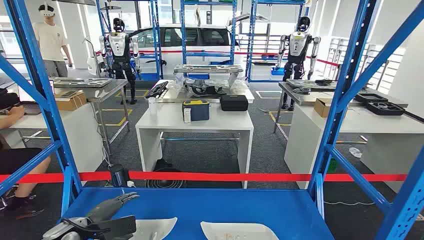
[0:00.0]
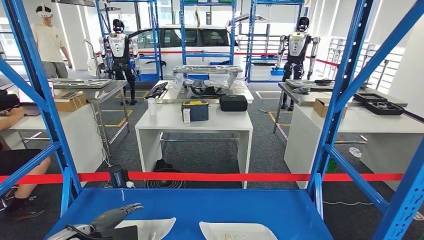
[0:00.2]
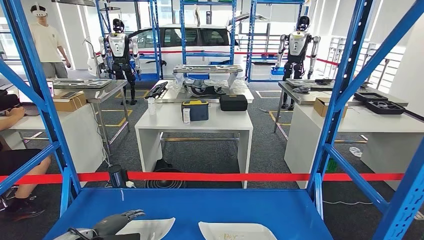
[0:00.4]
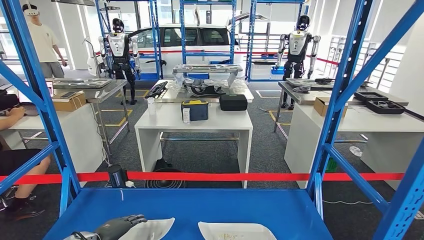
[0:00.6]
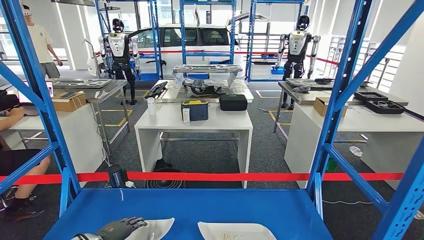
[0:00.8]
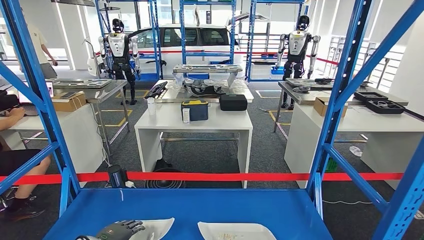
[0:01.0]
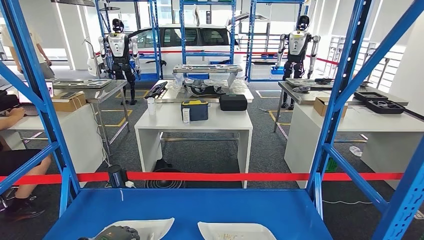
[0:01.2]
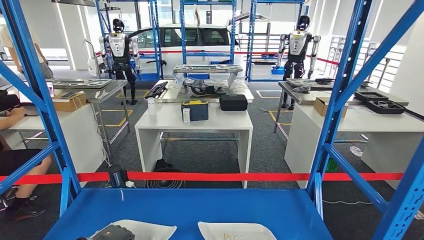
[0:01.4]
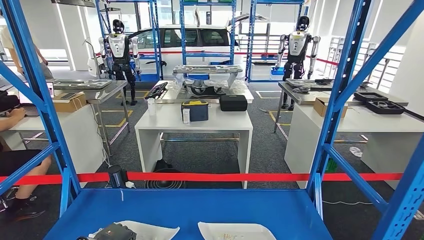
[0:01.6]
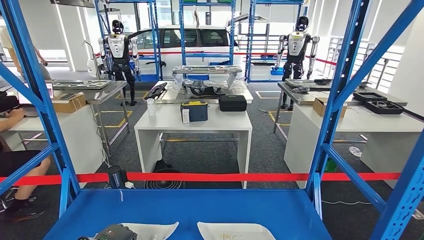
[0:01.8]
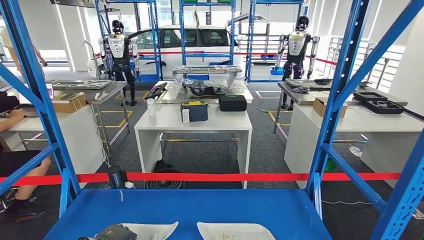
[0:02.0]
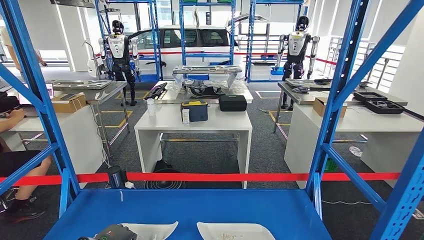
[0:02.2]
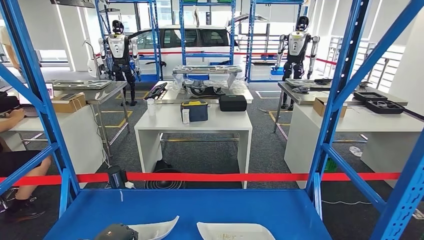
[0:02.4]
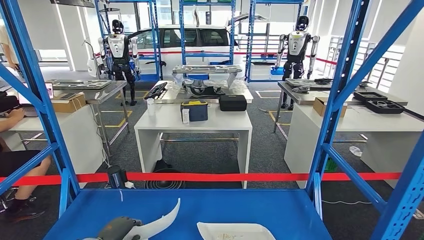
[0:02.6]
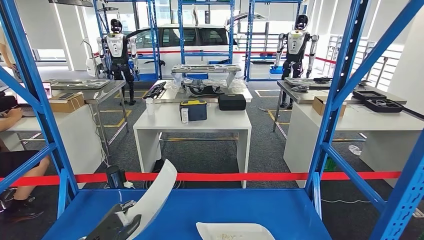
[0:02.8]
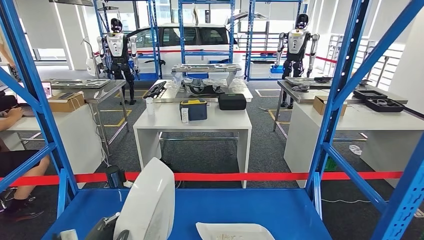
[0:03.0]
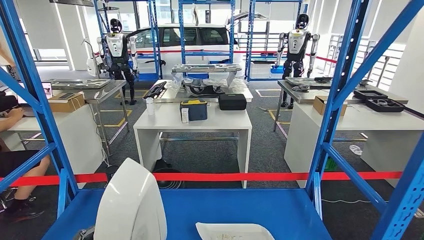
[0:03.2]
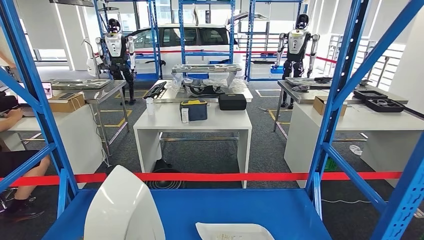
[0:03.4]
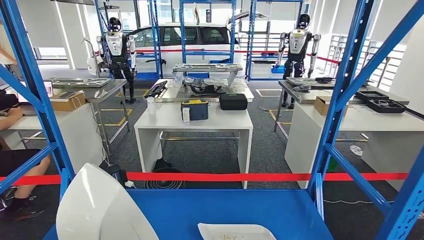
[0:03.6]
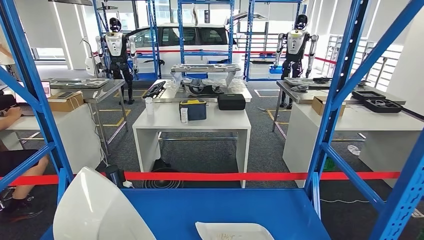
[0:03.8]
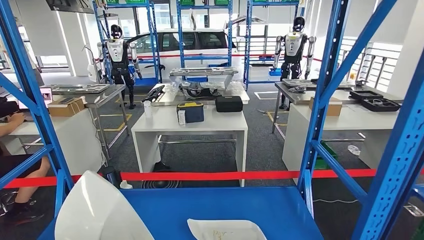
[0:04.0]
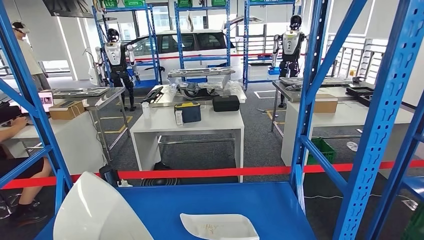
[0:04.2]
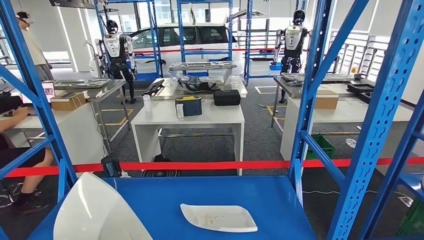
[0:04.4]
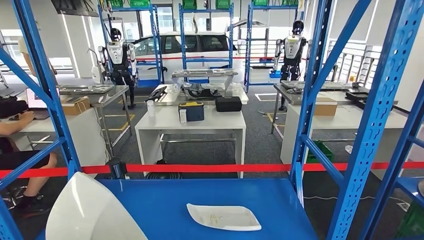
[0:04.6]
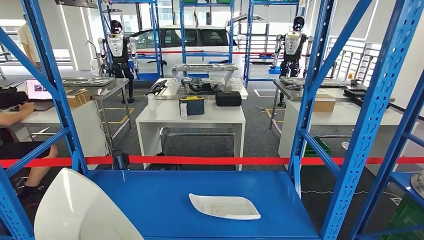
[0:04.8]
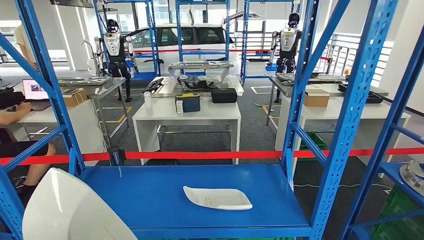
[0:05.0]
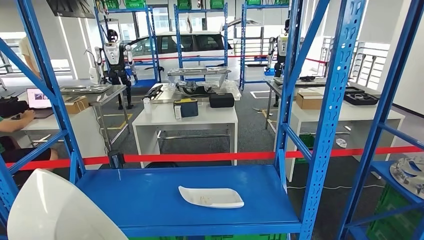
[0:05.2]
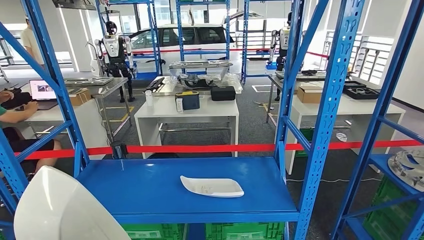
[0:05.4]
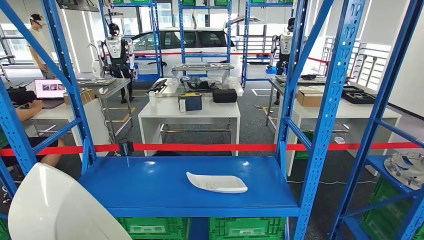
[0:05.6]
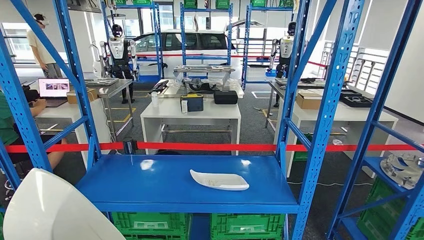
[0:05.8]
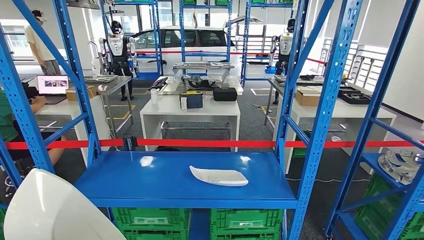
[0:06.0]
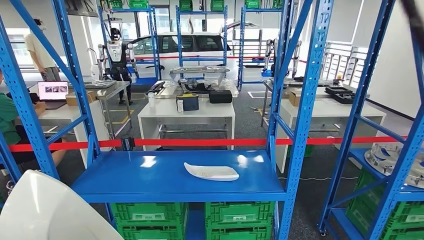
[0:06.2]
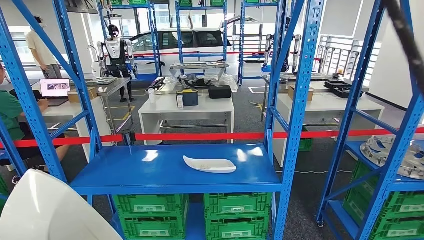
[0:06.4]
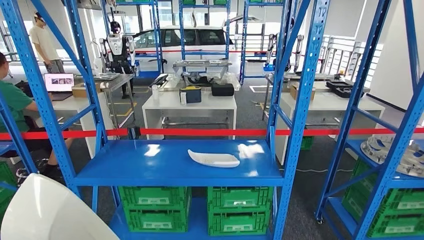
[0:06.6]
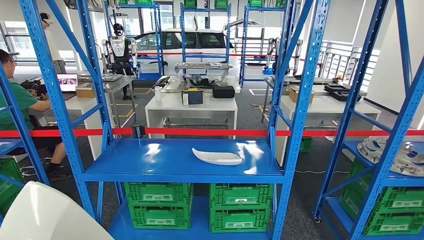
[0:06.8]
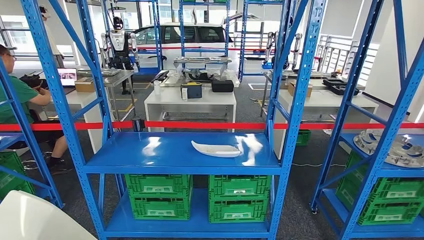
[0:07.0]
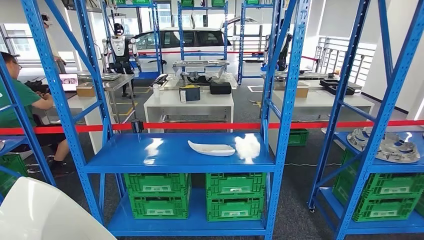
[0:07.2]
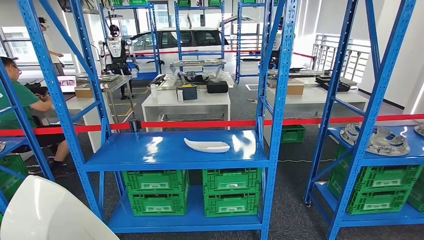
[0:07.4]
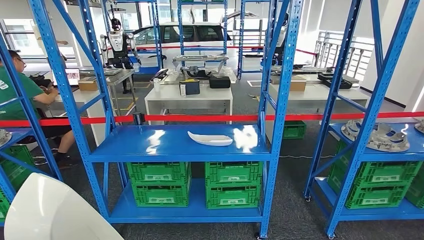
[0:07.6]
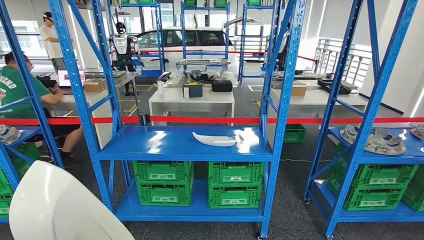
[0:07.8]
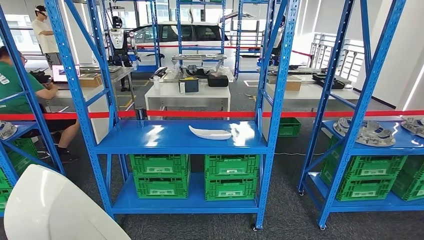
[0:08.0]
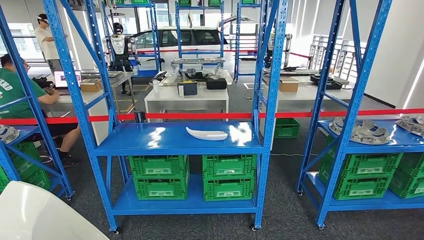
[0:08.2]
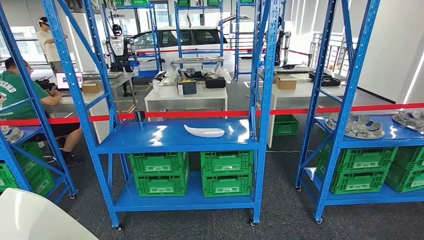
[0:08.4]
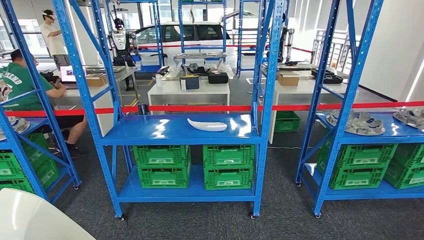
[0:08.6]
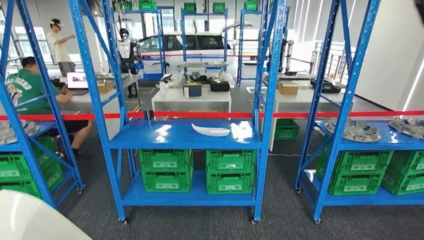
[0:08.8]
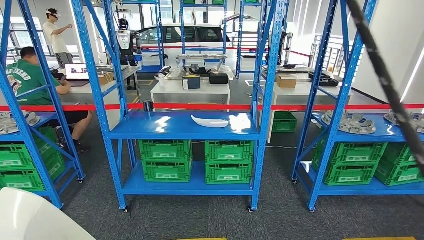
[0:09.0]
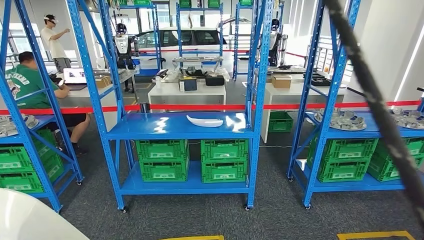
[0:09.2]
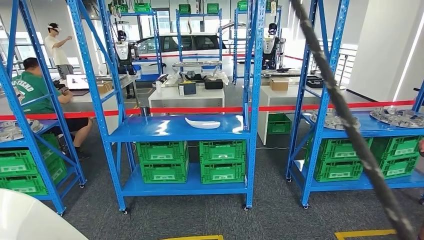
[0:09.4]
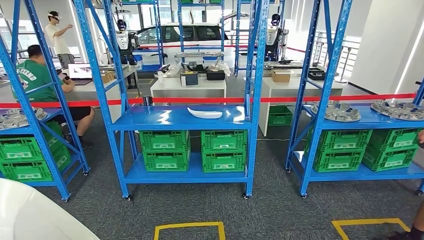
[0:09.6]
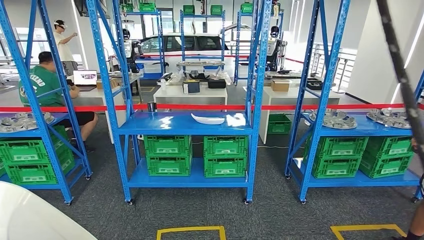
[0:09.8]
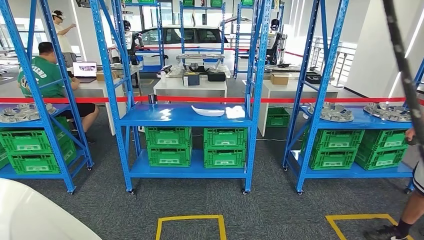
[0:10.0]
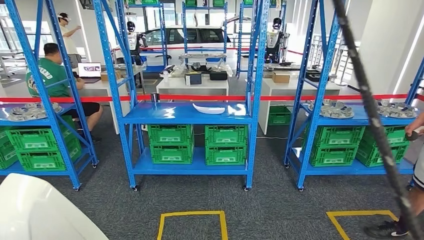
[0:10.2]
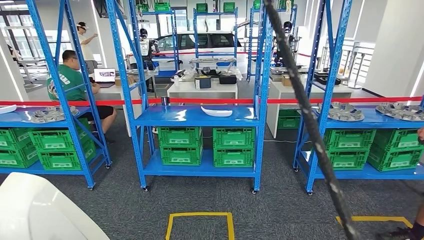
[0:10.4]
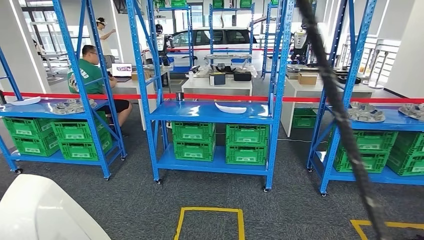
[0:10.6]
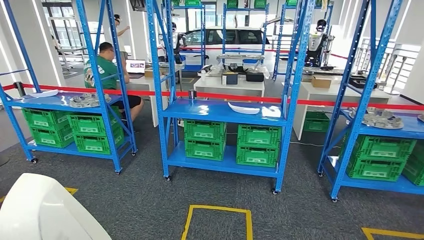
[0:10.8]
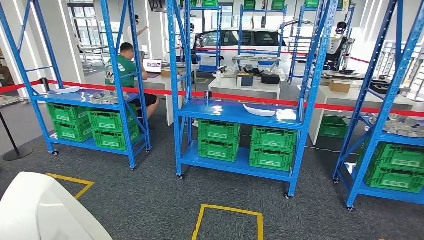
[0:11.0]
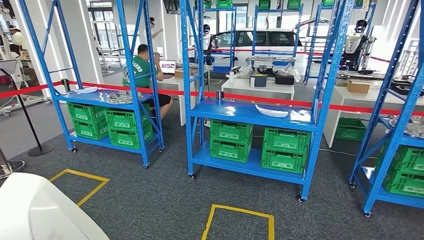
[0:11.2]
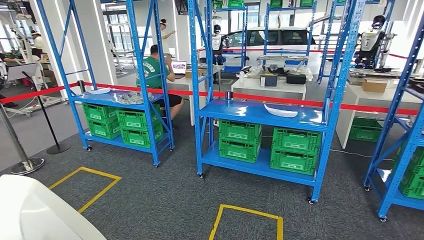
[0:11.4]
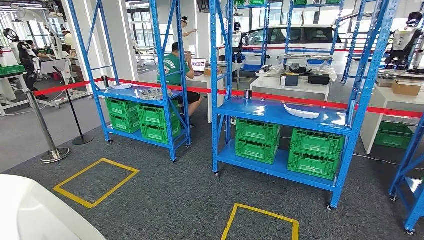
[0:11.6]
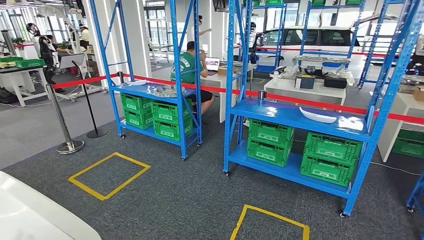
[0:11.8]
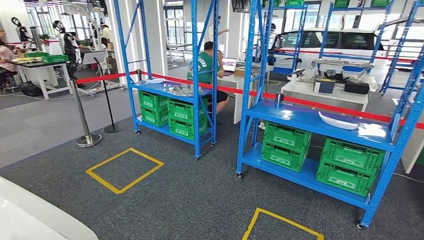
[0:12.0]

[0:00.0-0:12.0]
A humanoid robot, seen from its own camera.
Step, 0:00.0 to 0:04.4: Take small components from the rack.

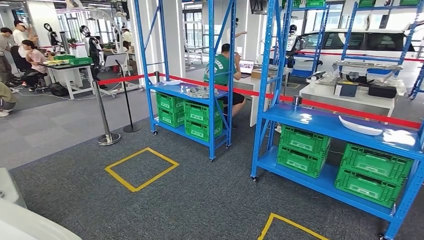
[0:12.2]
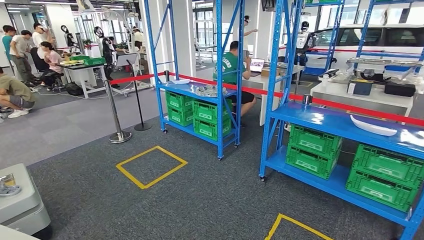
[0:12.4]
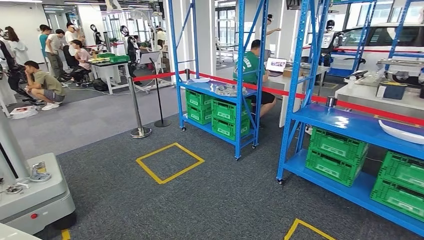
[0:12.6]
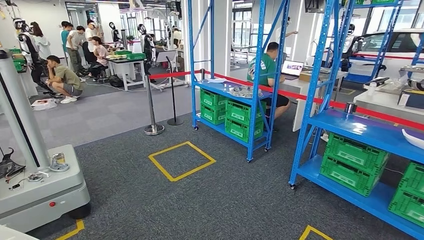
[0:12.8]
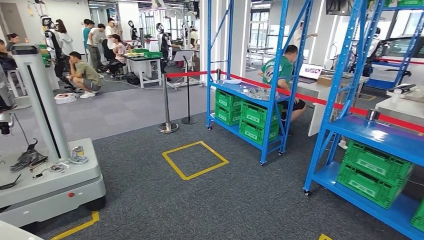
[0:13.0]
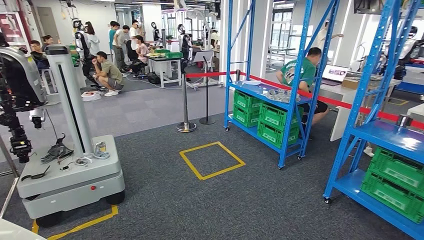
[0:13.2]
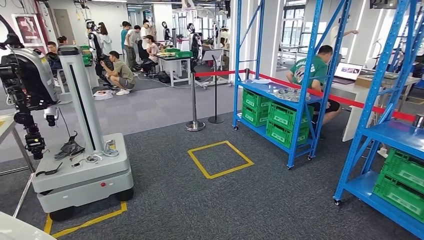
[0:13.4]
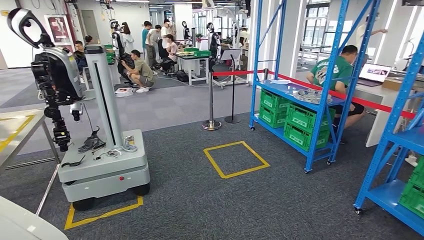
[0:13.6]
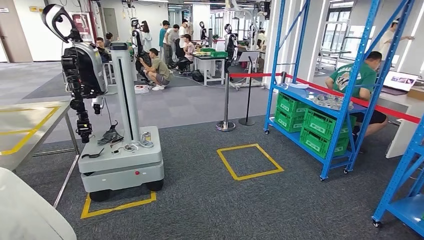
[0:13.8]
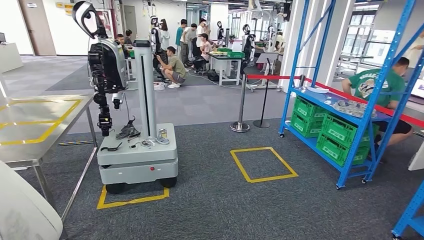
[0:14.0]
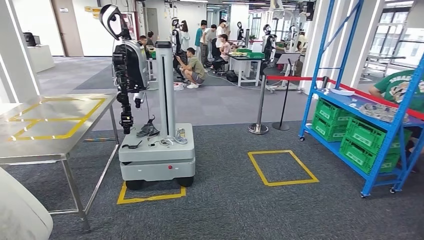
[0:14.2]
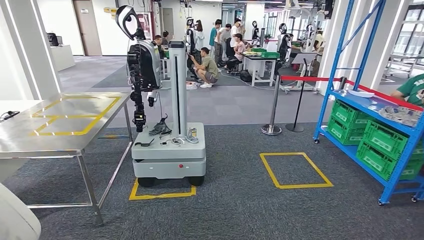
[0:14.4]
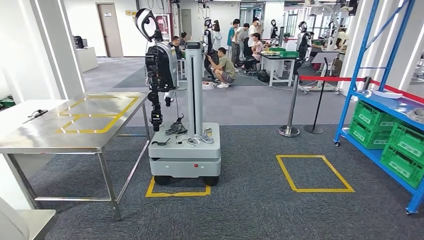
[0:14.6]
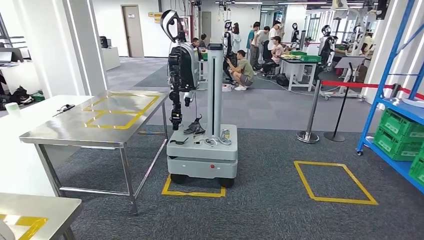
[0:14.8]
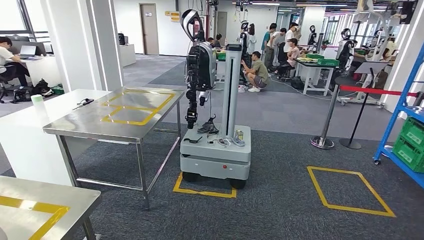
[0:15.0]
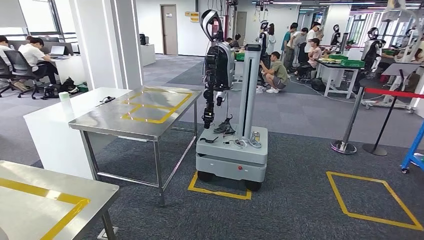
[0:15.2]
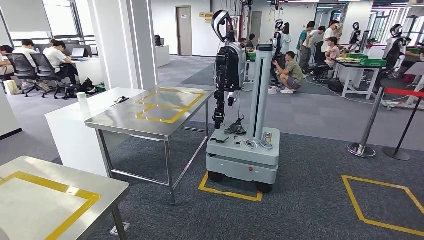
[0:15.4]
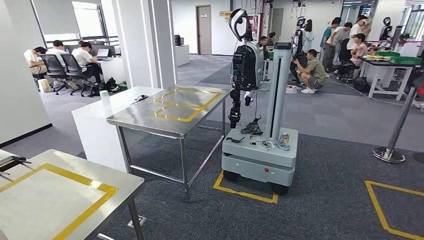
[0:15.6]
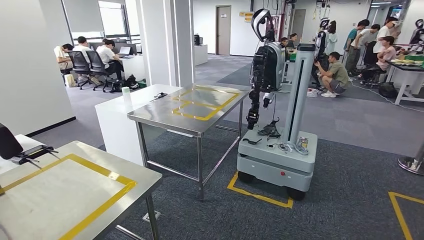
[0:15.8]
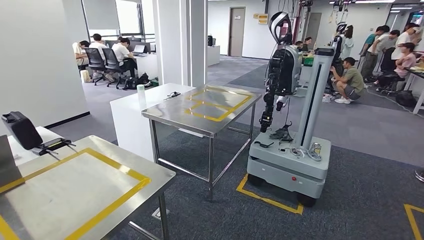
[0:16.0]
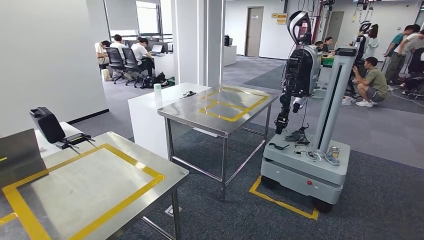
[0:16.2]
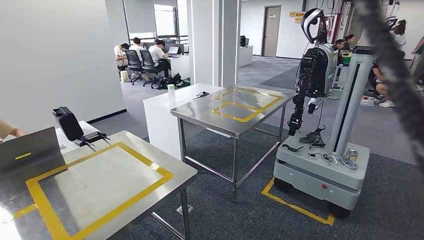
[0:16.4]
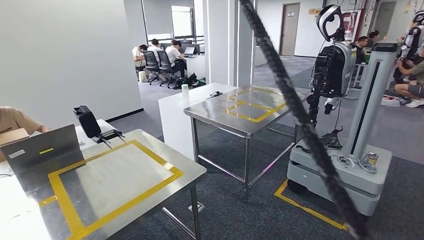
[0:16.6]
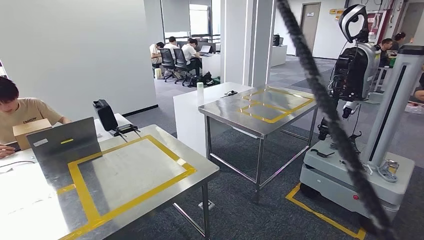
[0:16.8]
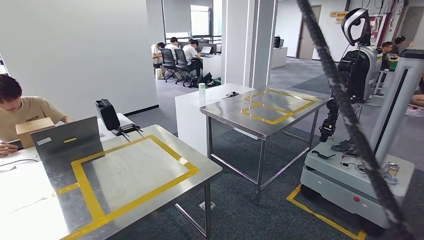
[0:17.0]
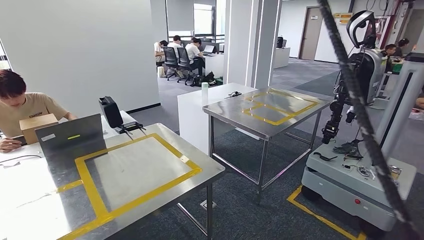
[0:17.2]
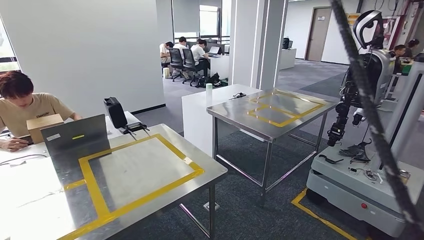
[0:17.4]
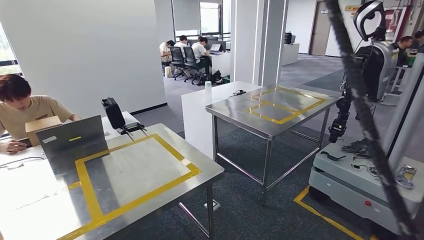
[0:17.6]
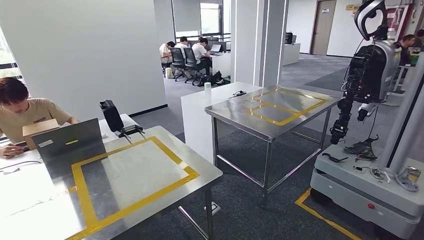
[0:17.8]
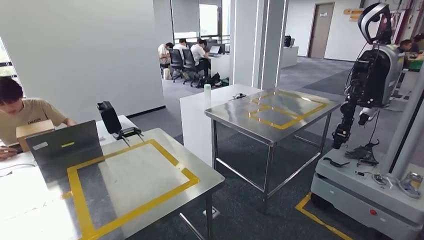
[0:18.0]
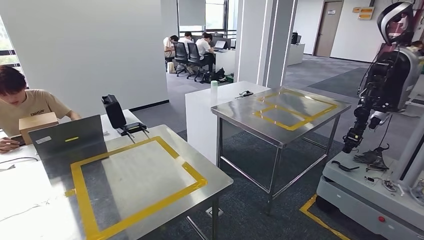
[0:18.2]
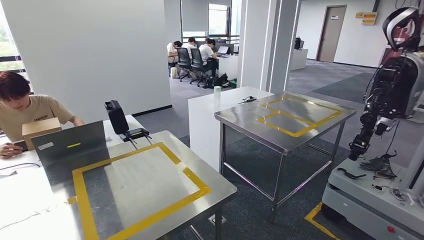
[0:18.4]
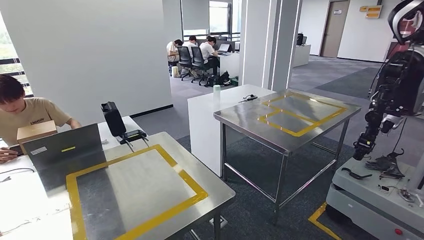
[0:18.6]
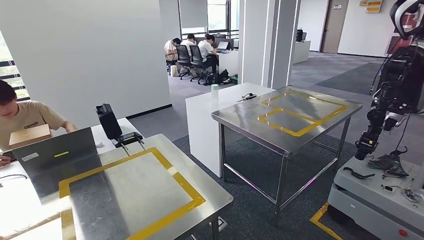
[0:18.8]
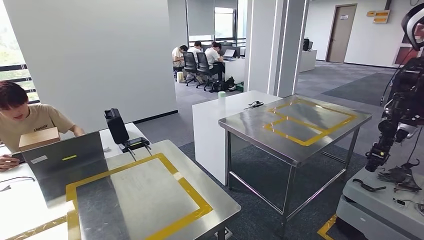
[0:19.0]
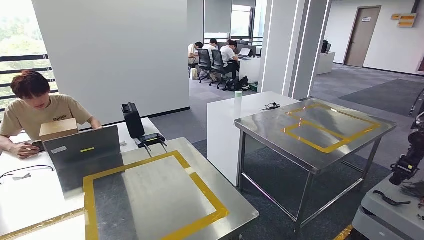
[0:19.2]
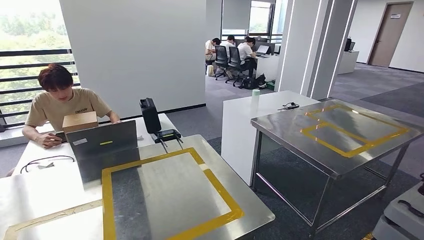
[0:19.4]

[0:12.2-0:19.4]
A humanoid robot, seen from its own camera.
Step, 0:12.2 to 0:17.0: Move the small parts to the workbench.
